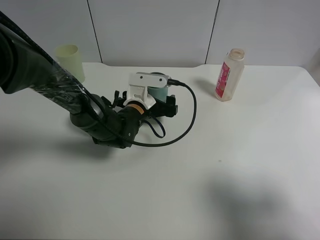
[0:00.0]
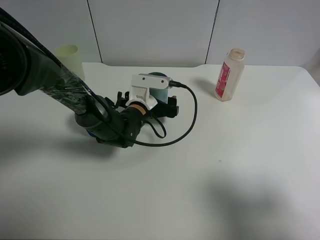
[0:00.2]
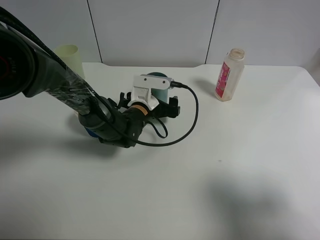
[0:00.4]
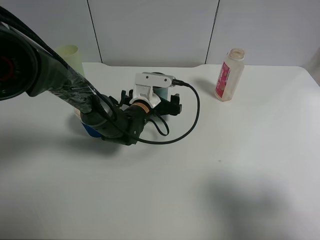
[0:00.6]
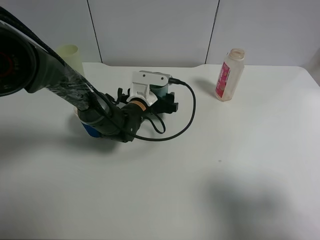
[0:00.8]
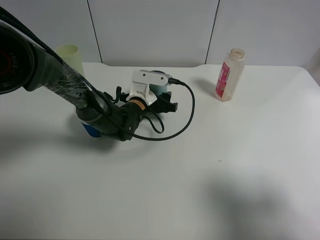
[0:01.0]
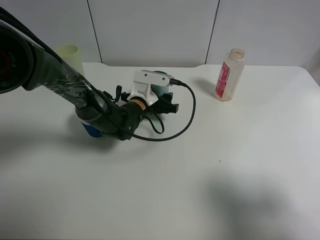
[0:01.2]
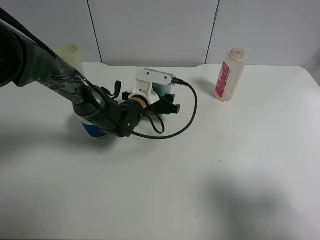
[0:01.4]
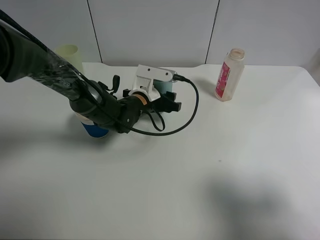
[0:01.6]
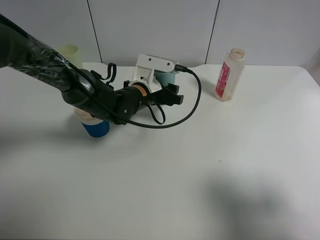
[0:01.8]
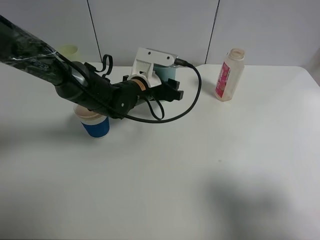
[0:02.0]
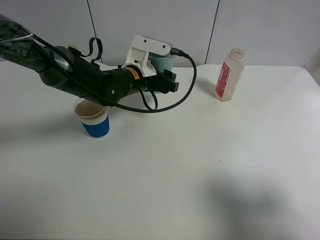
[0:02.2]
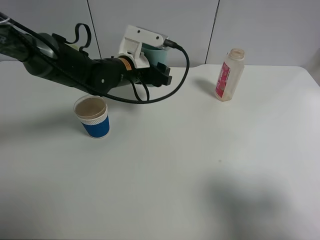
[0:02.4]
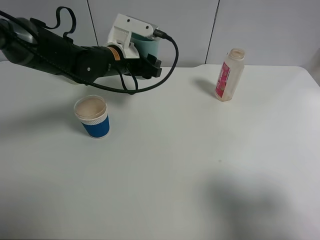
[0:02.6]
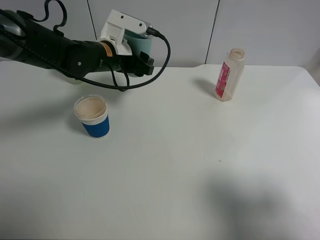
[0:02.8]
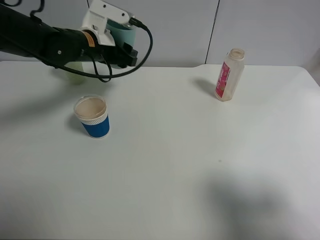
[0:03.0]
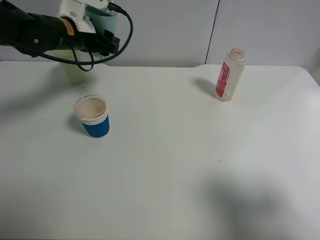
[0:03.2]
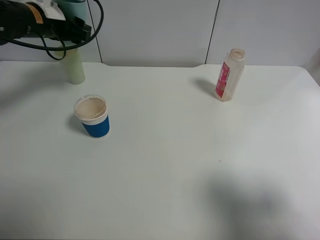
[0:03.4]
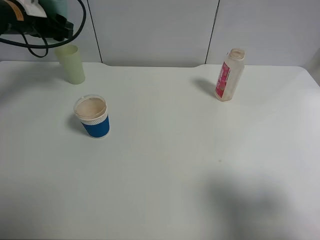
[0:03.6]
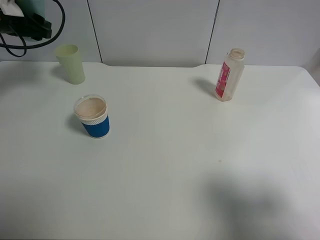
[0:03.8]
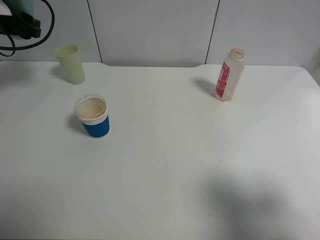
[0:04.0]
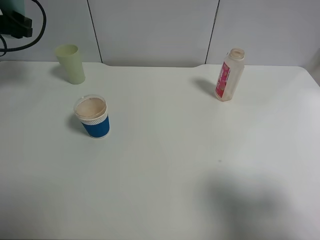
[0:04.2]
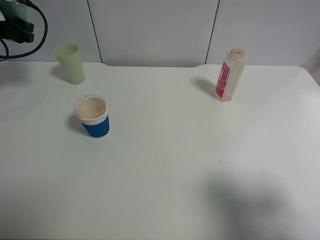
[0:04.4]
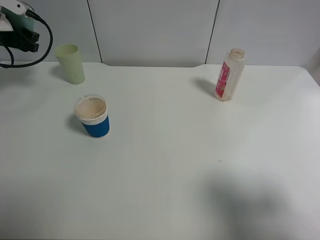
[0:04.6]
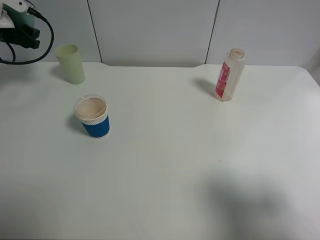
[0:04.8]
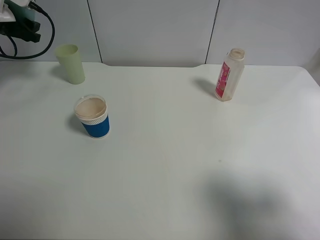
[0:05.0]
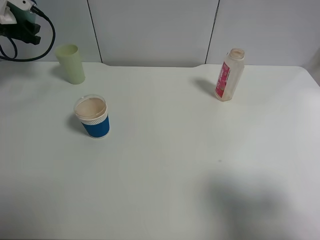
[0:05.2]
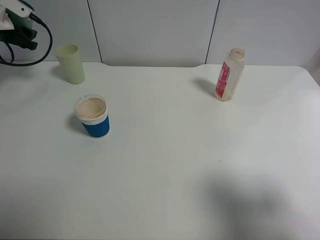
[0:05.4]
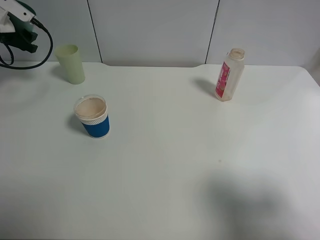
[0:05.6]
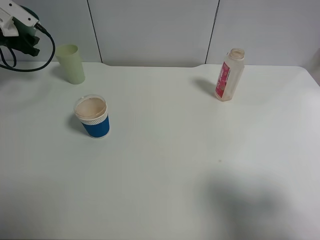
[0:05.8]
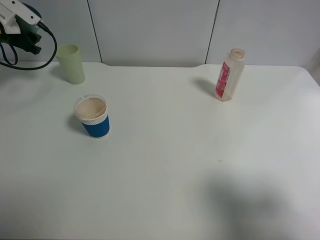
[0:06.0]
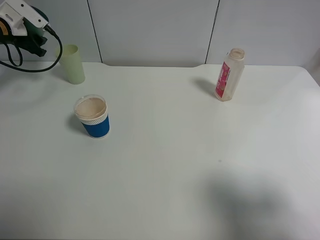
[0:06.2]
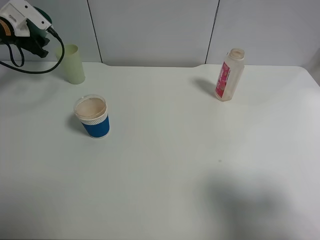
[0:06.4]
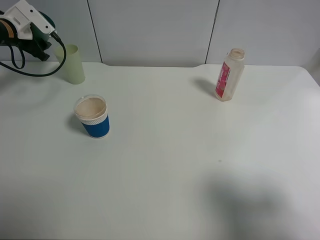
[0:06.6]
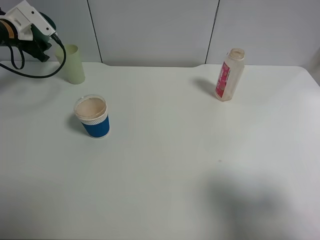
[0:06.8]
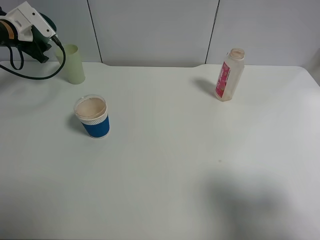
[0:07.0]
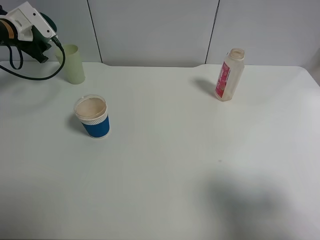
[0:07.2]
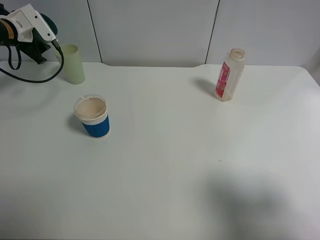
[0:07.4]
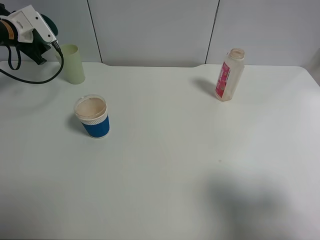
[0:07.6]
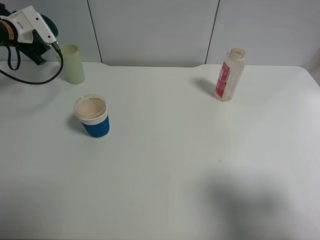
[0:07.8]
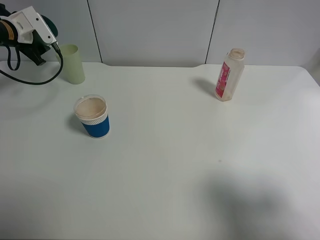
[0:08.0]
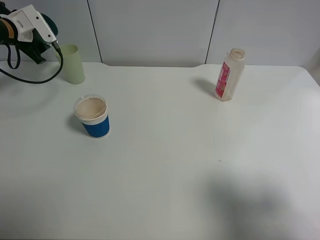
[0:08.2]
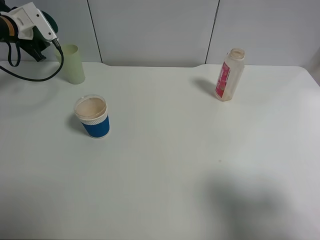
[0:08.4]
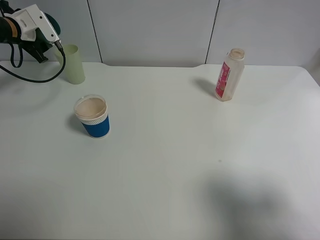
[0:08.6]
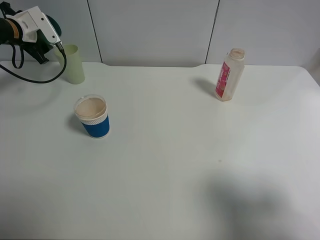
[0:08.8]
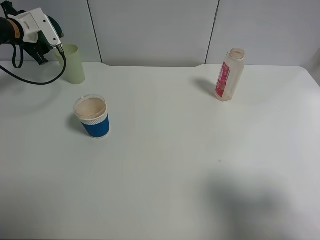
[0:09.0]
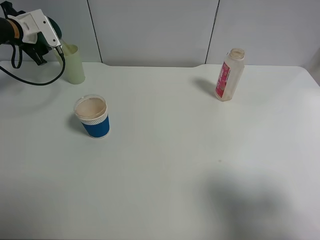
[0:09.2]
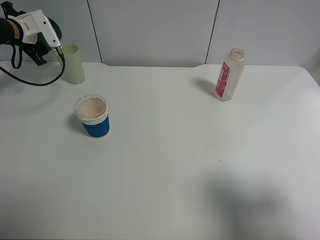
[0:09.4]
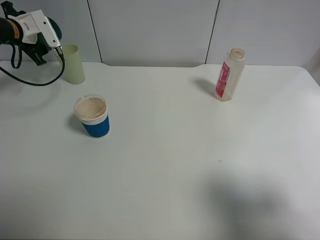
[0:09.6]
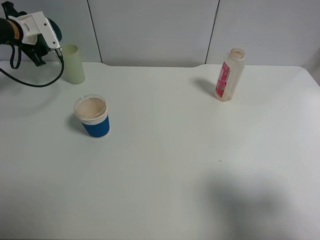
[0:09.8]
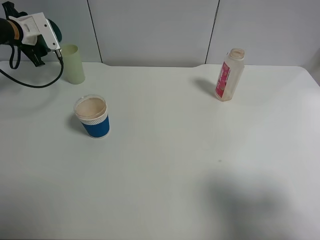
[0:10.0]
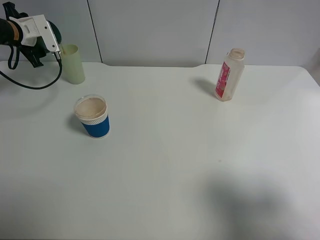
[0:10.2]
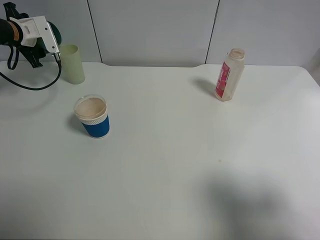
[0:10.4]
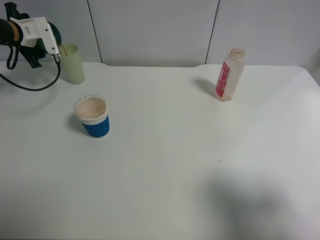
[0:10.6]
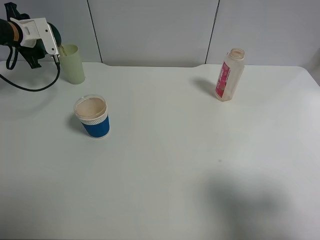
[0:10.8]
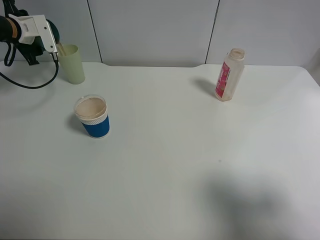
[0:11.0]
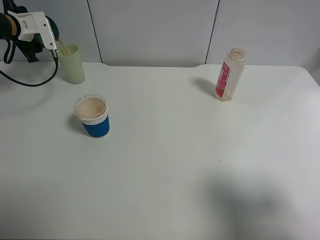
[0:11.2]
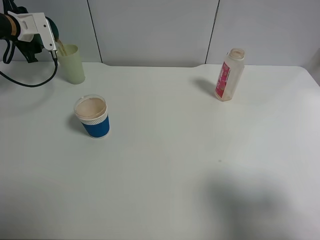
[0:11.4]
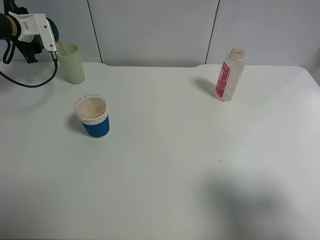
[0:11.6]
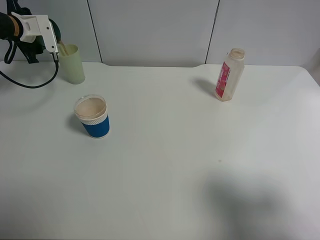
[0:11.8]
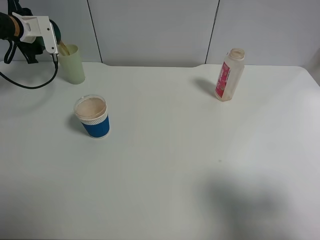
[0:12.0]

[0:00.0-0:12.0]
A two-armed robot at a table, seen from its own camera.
Task of the whole recording: use a clamp to hold the bottle of the drink, pour the beverage into a random cup, then clamp the cup containing the drink and pour the drink into another random cup.
0:00.0 to 0:01.6: The left gripper closes its fingers.
0:01.6 to 0:03.0: The left gripper travels upward and to the left by roughly 15 cm.
0:03.0 to 0:04.4: The left gripper is displaced to the left by about 25 cm.
0:04.4 to 0:06.0: The left gripper shifts roughly 5 cm forward.
0:06.0 to 0:07.6: There are only small adjustments of the grippers.
0:07.6 to 0:10.4: The grippers move only a little.
0:10.4 to 0:12.0: The grippers make only small movements.

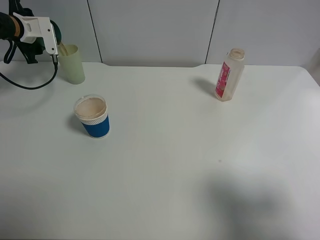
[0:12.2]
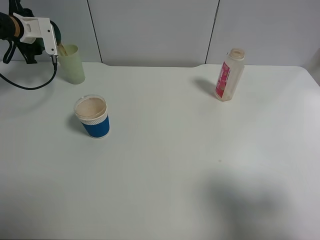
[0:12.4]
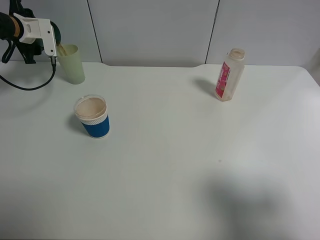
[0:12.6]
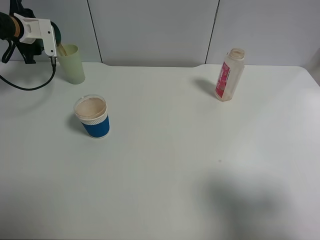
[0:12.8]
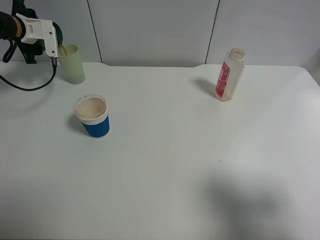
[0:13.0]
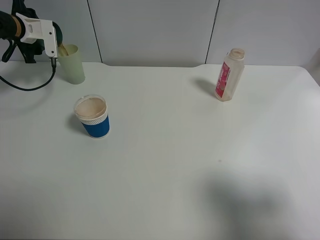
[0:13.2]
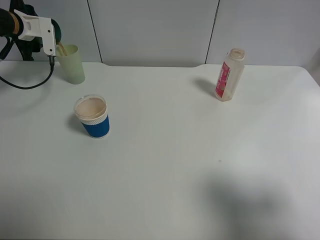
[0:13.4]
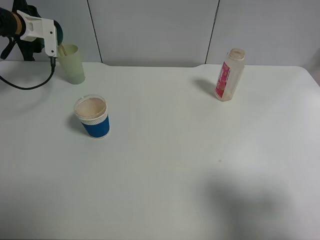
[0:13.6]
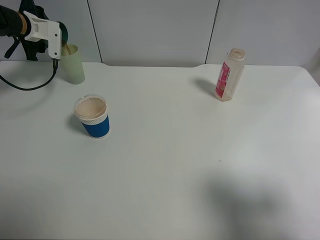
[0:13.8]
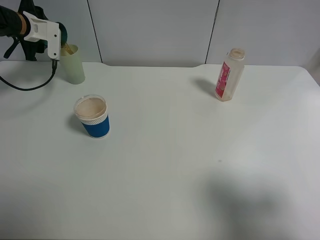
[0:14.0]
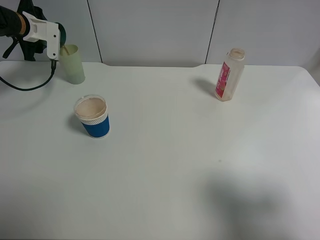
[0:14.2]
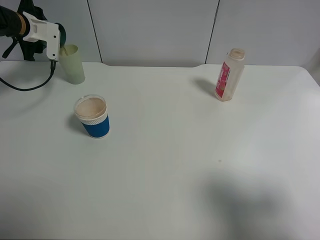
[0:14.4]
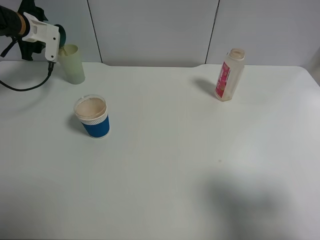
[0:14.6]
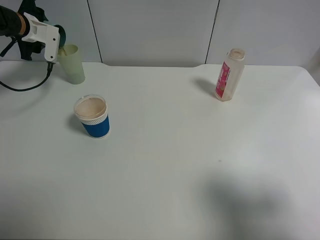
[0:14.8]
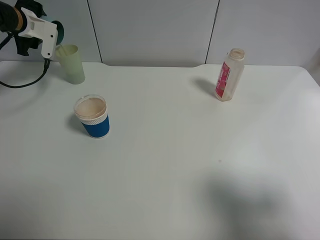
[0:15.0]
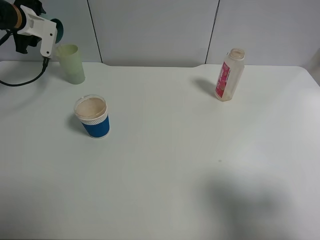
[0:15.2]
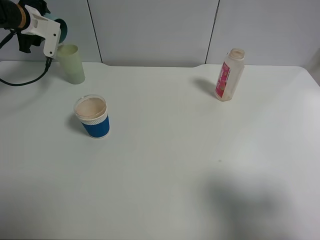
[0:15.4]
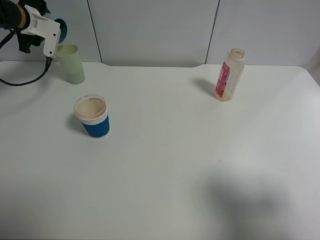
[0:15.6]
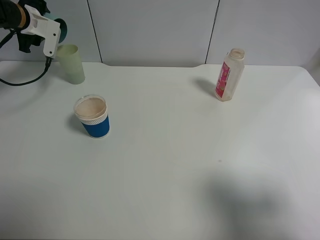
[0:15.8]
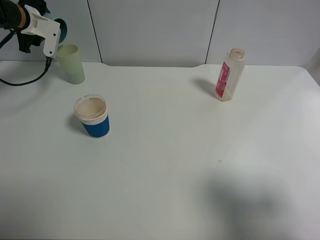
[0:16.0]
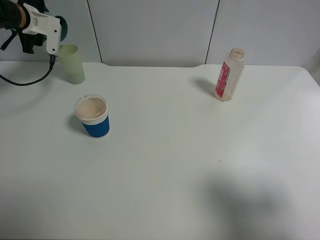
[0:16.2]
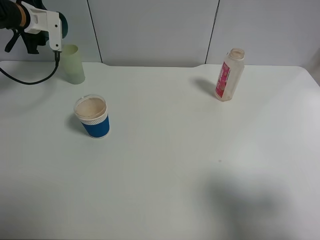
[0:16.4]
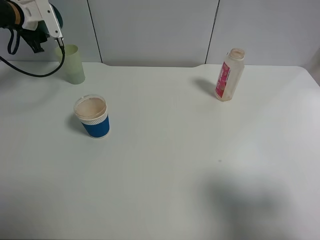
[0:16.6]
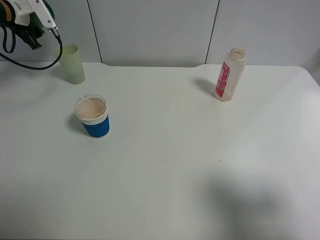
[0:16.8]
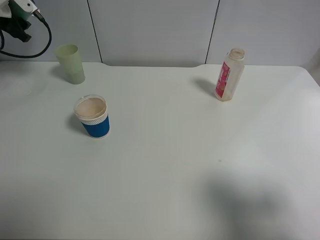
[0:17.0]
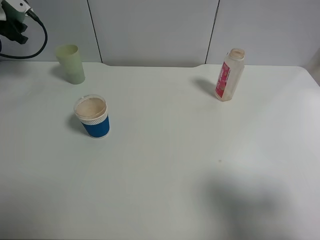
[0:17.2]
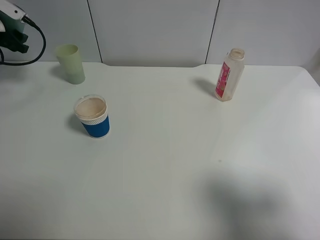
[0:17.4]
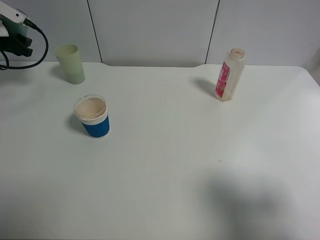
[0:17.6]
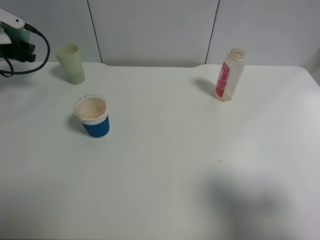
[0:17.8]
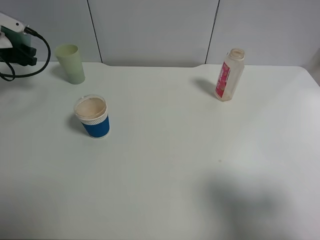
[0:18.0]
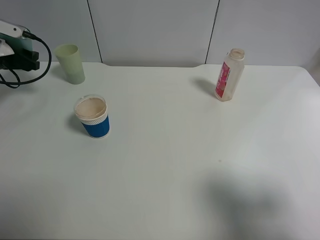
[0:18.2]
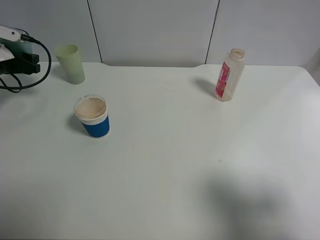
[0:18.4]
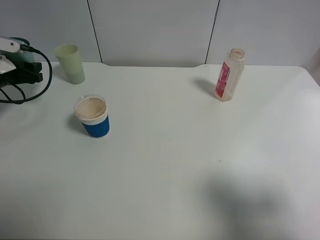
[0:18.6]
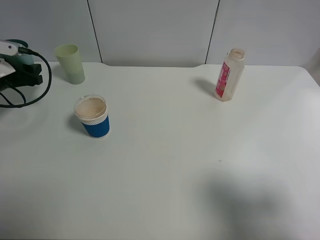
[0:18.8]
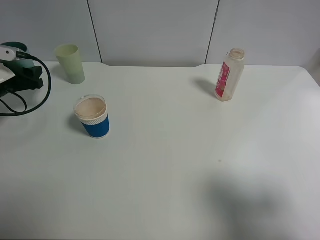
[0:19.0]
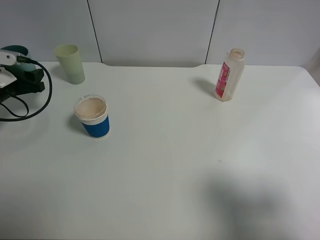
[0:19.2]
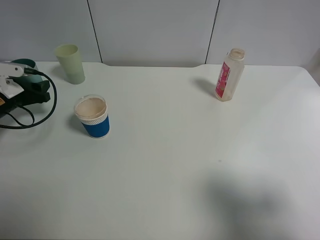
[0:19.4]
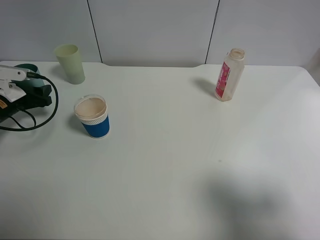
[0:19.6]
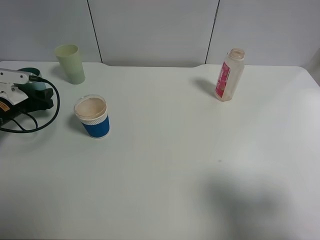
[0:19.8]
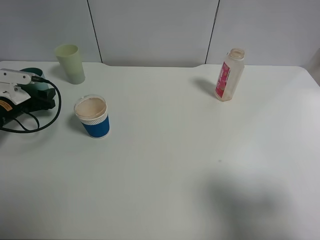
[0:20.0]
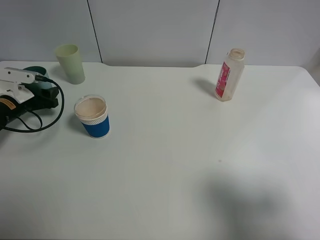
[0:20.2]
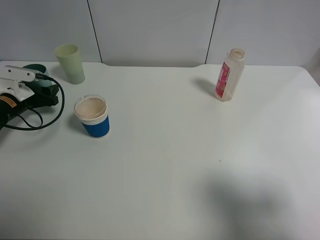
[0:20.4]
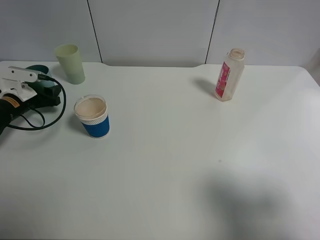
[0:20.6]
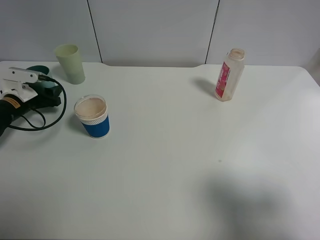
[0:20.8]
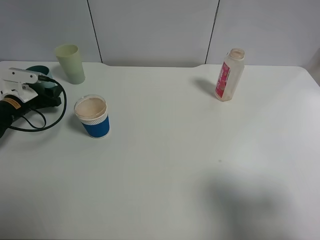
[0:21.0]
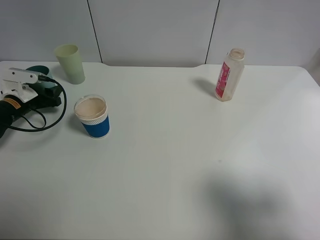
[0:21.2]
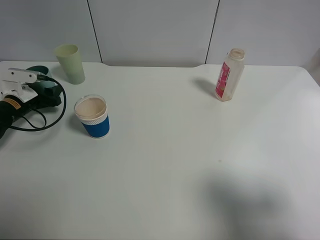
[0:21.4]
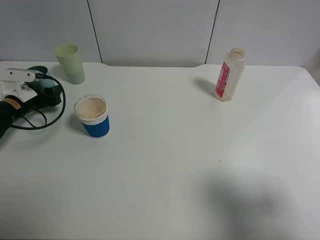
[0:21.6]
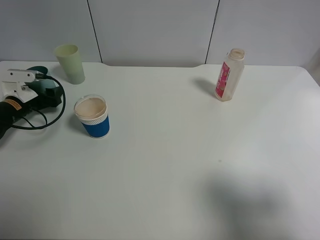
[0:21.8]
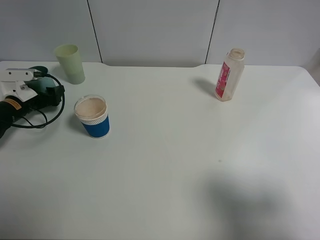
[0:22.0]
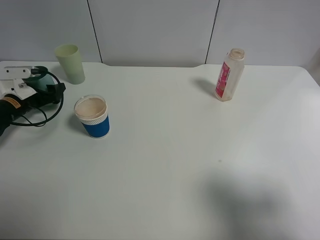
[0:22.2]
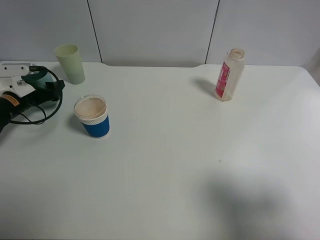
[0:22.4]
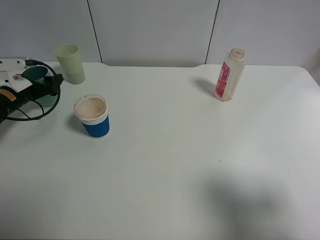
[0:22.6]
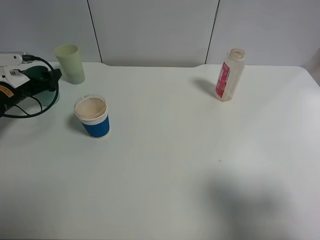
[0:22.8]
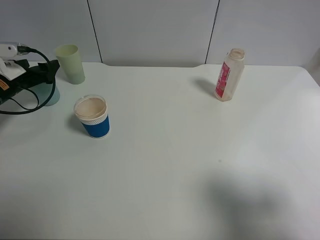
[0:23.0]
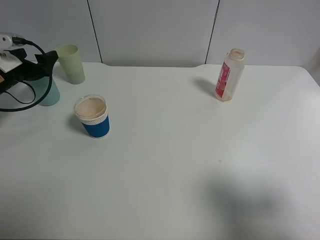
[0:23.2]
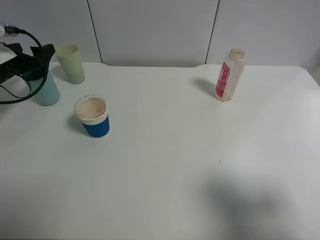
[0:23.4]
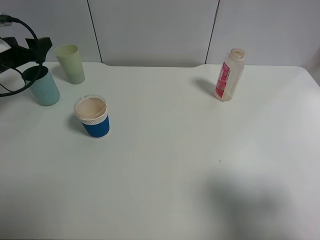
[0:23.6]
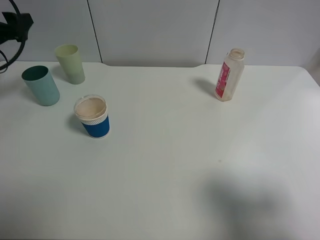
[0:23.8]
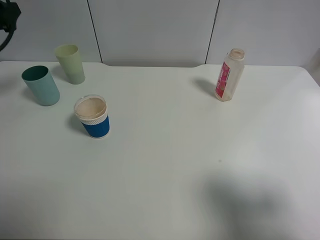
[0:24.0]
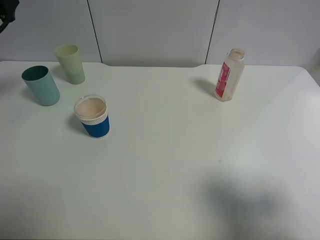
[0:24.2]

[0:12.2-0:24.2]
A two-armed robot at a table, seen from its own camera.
Task of the whole recording: use a clamp to hold the bottle of the drink, pour the beverage into a random cup, then clamp the cup containing the drink and pour the drink into another random cup.
Step, 0:12.2 to 0:16.6: Pour the drink into the green plastic cup with left gripper.
Step, 0:16.8 to 0:21.8: Place the blue plastic cup on the table with left gripper.
0:12.2 to 0:13.8: The grippers make only small movements.
0:13.8 to 0:15.2: The grippers move only a little.
0:16.6 to 0:18.2: The left gripper heads backward, to the left and downward, covering about 10 cm.
0:18.2 to 0:19.8: The left gripper goes about 10 cm downward and backward.
0:19.8 to 0:21.2: The grippers stay close to where they were, moving slightly.
0:21.2 to 0:22.6: The left gripper opens.
0:22.6 to 0:24.2: The left gripper moves upward, about 20 cm.
